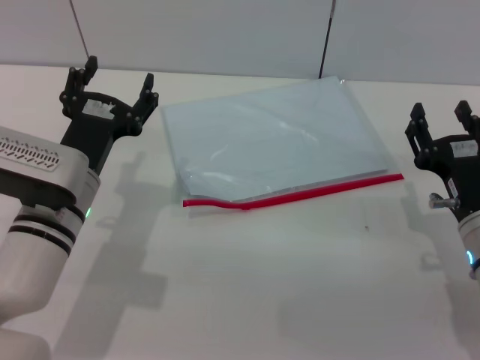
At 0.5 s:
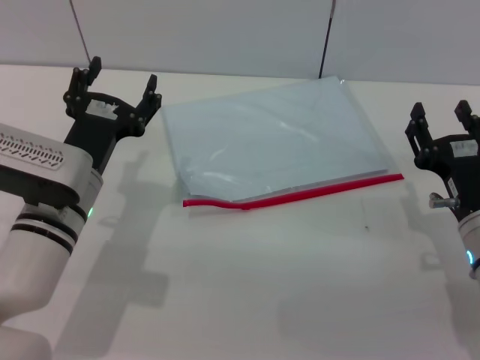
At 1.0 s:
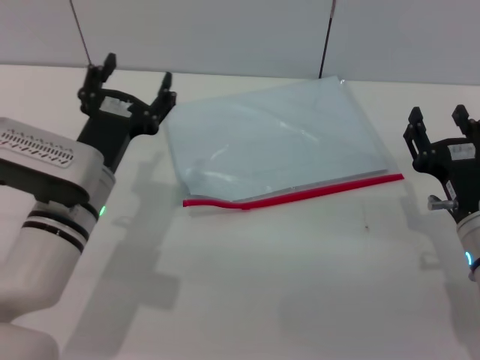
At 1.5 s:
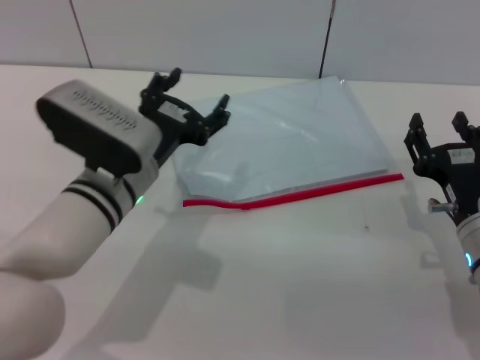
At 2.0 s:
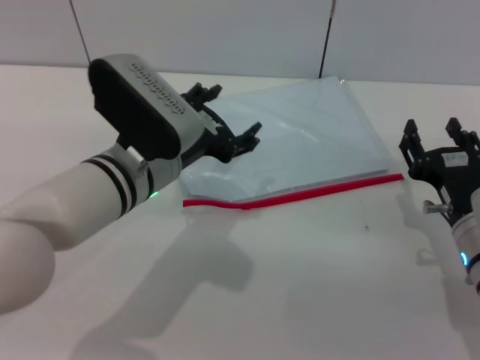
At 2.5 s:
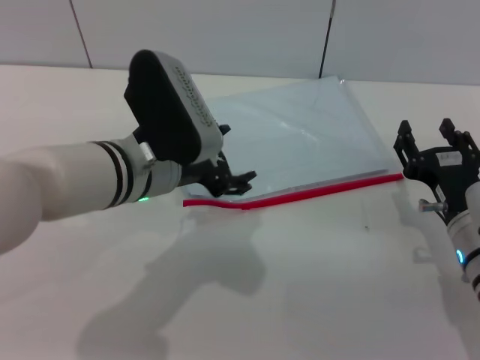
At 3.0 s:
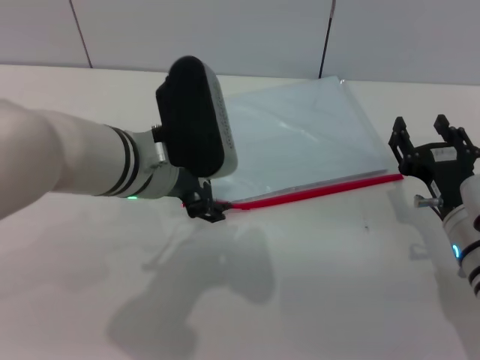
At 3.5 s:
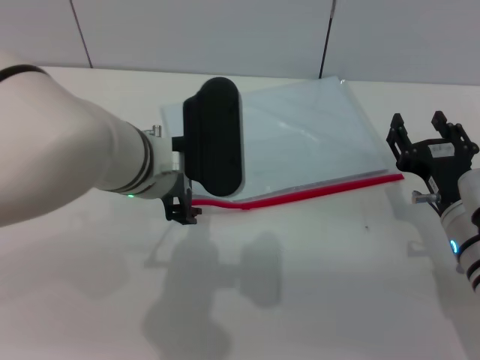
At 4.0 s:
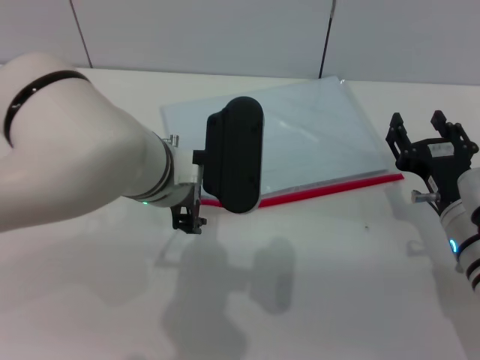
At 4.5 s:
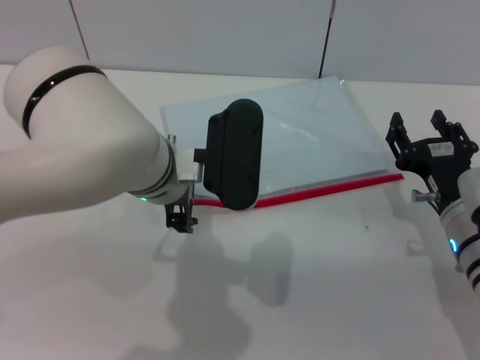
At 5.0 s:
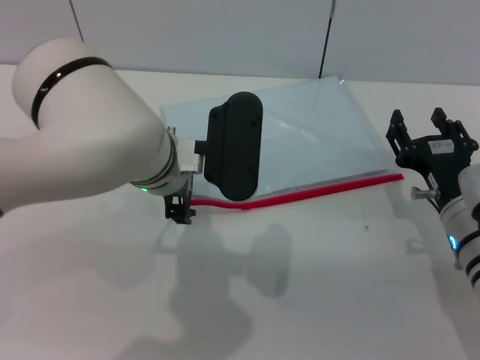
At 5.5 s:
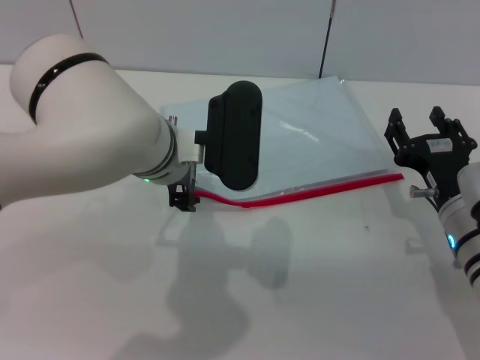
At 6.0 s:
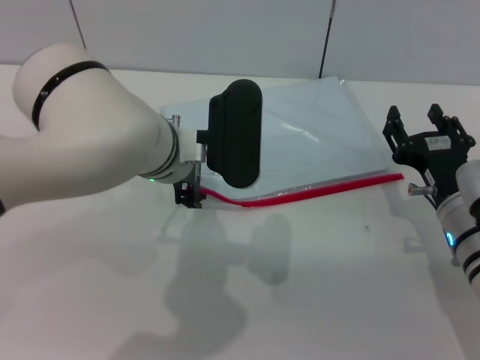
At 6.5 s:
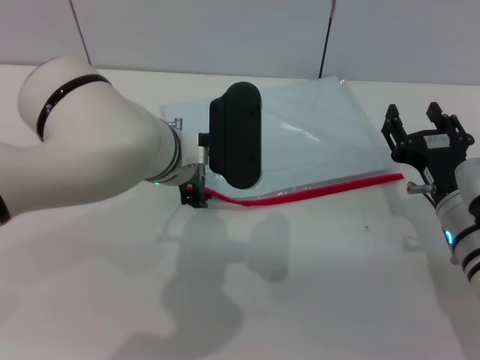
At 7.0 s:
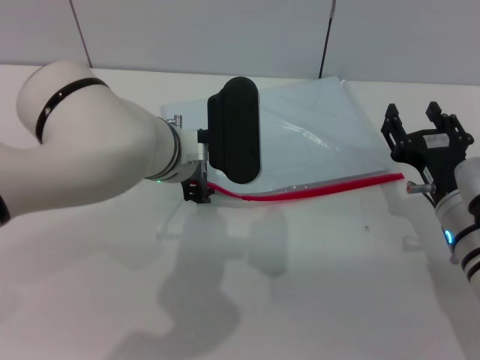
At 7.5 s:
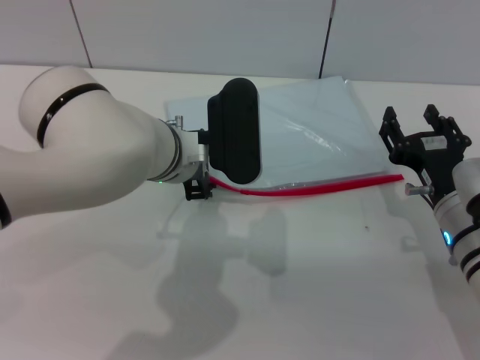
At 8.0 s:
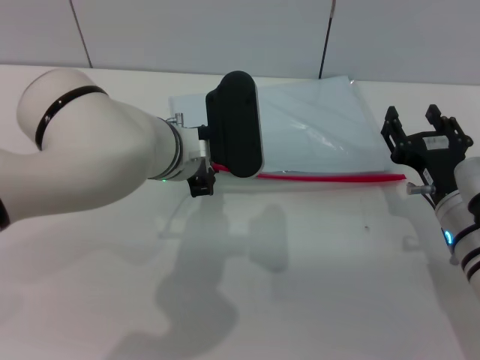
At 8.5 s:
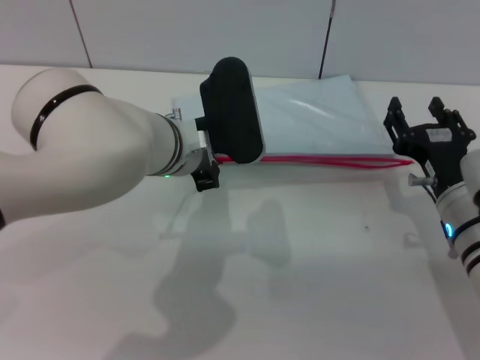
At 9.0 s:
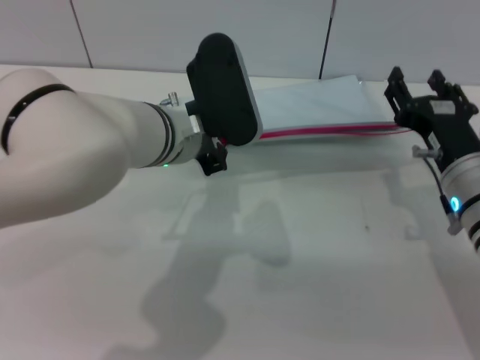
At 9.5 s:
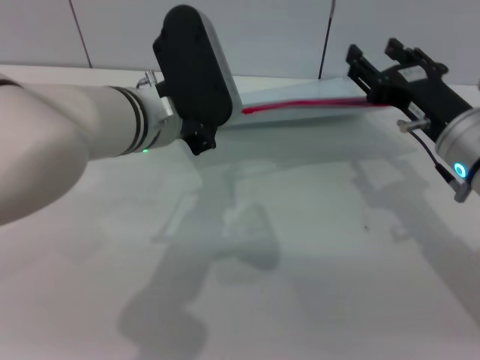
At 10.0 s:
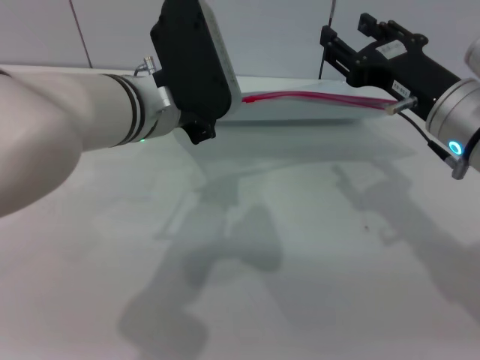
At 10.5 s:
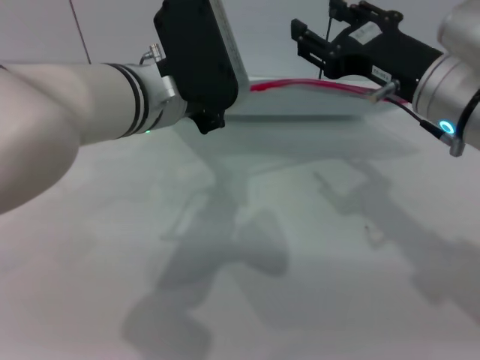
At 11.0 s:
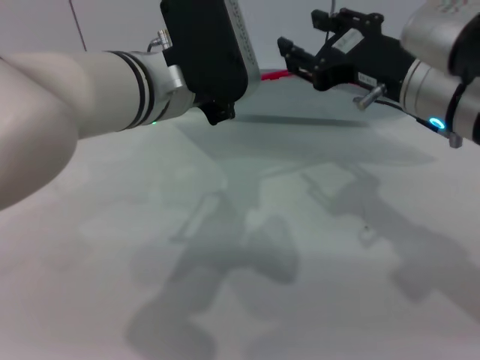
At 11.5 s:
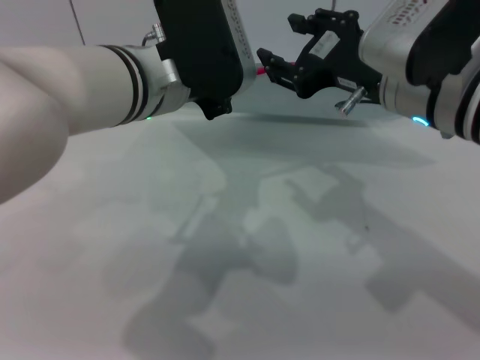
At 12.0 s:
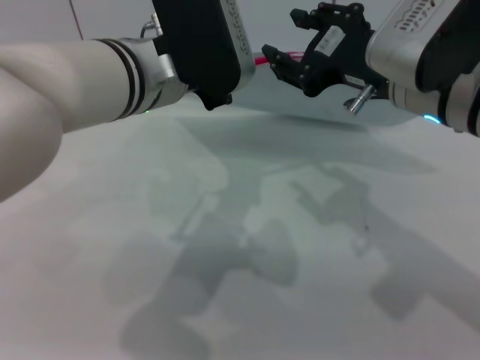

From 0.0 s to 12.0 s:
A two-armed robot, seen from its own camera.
Step, from 0.0 s to 10.0 s: Pick up the transparent plastic bag with the left gripper.
From 0.0 s to 2.0 s: The left gripper shifts about 10 cm to the right and upward.
From 4.0 s to 6.0 s: The grippers stay close to where they were, moving slightly.
From 6.0 s to 8.0 s: The left gripper closes its fingers.
From 8.0 s to 10.0 s: The left gripper is displaced upward by some 5 cm. The right gripper moves upward, about 10 cm.
From 10.0 s to 12.0 s: The right gripper is displaced upward by roughly 5 cm.

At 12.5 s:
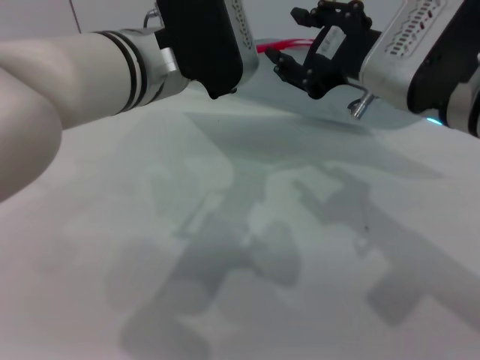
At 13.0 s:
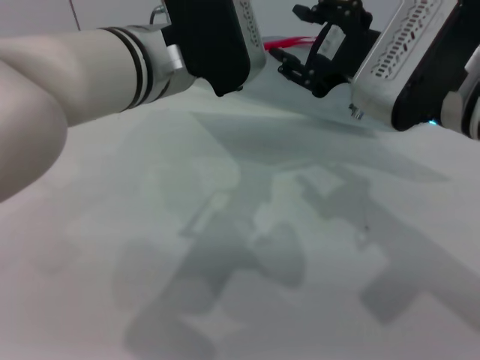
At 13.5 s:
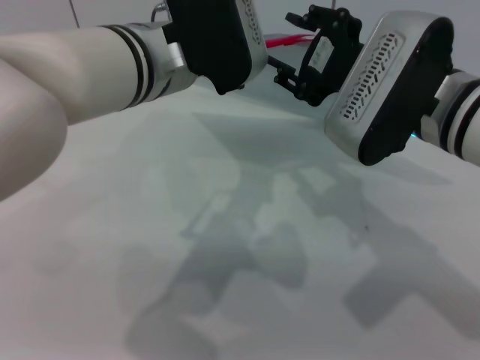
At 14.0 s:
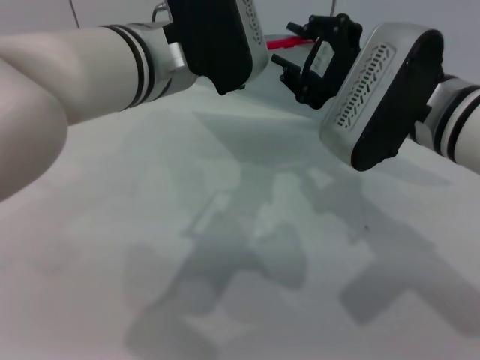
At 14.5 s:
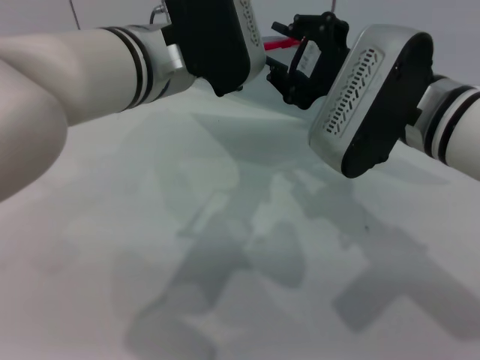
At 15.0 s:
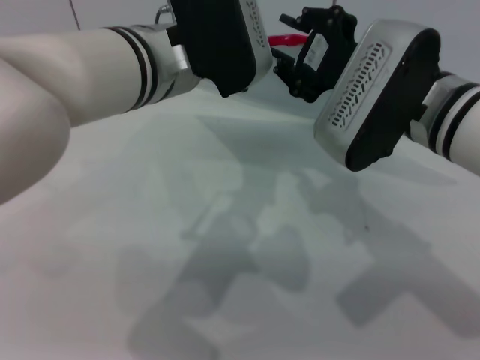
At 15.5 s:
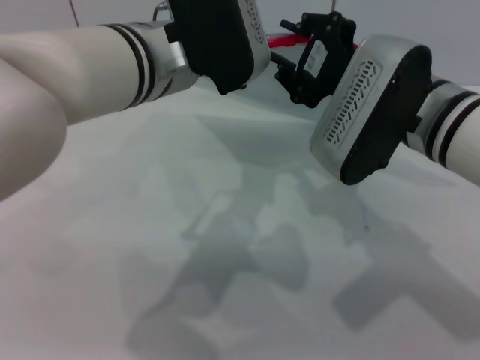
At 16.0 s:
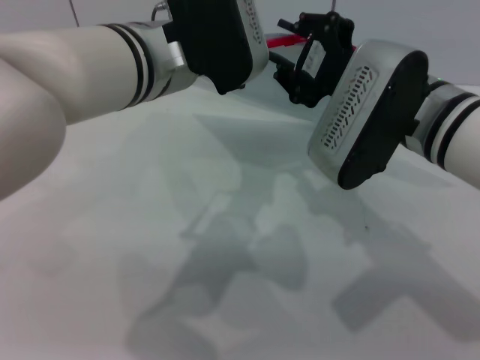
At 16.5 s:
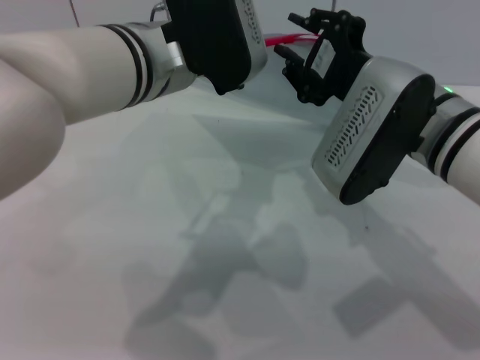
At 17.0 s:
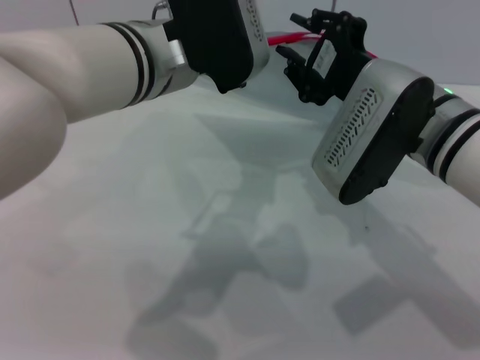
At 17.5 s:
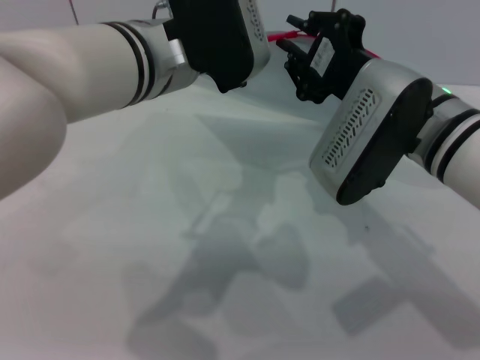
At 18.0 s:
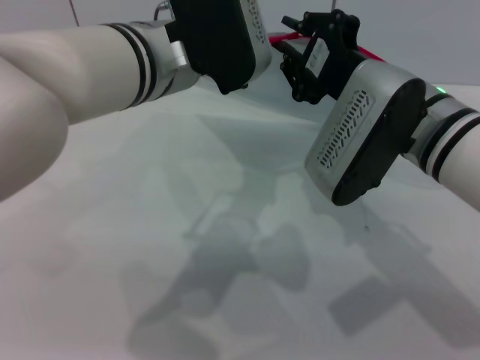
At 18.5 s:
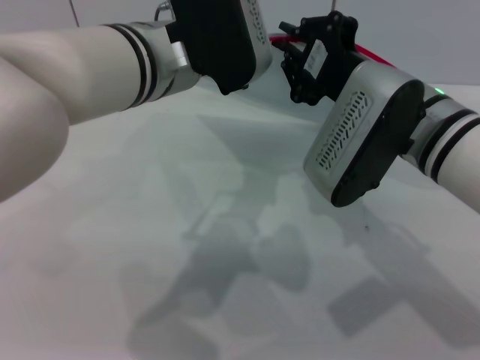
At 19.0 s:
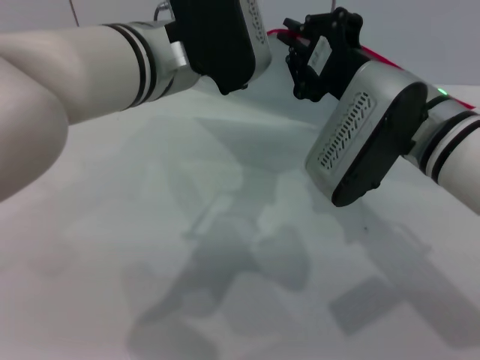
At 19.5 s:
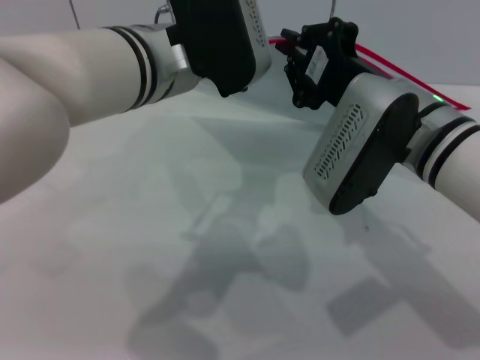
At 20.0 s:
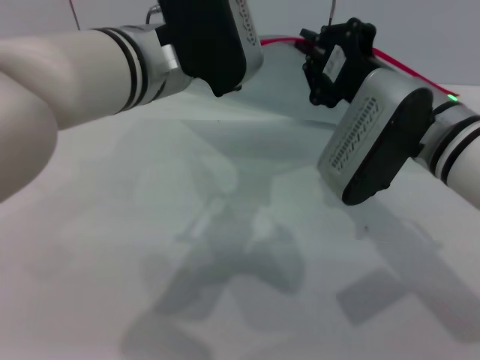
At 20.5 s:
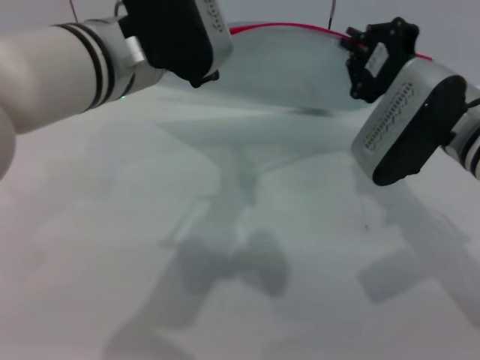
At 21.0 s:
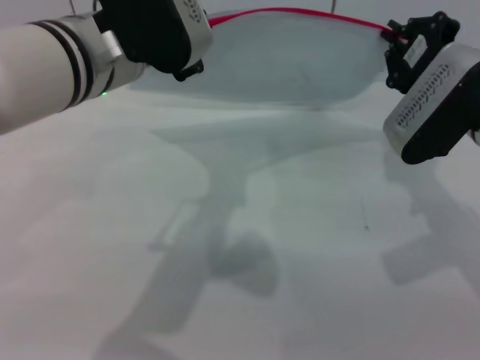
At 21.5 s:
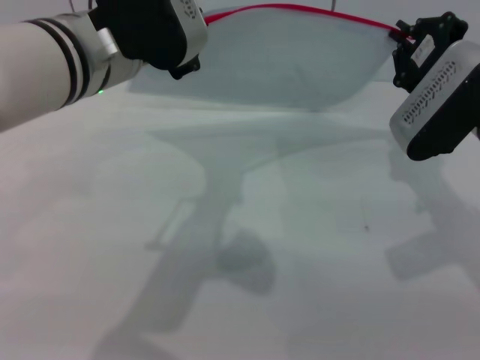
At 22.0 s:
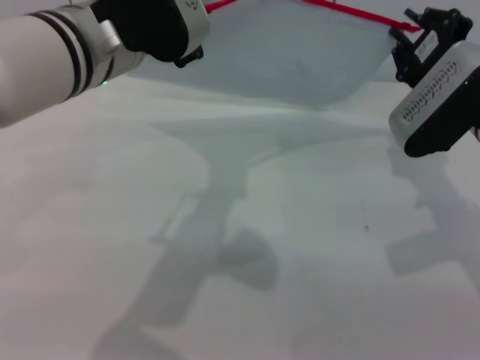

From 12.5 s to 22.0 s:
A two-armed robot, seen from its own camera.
Step, from 12.5 s to 22.0 s: Pulling up the zipper on the transparent plastic bag with the right gripper to close it.
From 12.5 s to 14.5 s: The grippers make only small movements.
From 14.5 s to 16.5 s: The grippers make only small movements.
From 16.5 s to 18.0 s: The two grippers keep their place.
From 18.0 s to 20.0 s: The grippers stay close to where they were, moving slightly.
From 20.0 s to 22.0 s: The right gripper shifts roughly 5 cm to the right.

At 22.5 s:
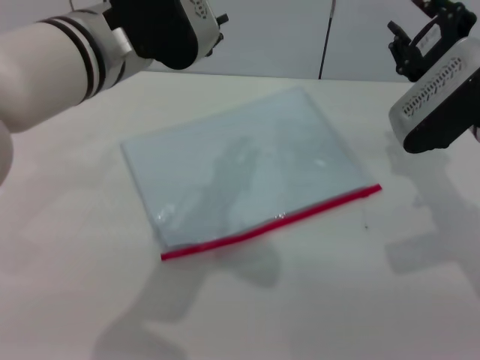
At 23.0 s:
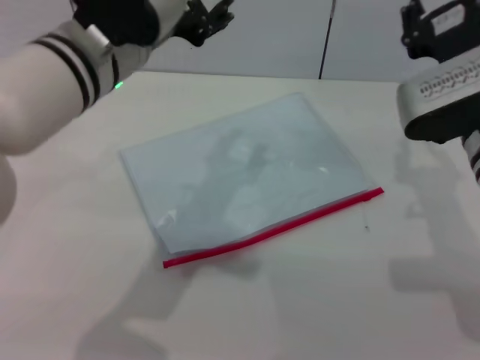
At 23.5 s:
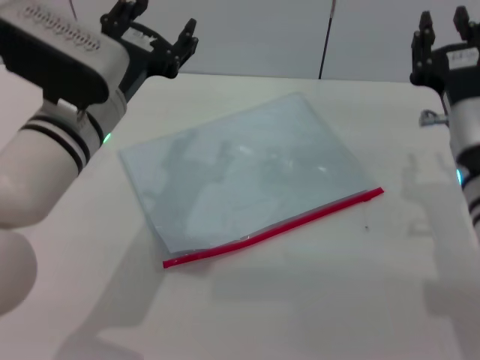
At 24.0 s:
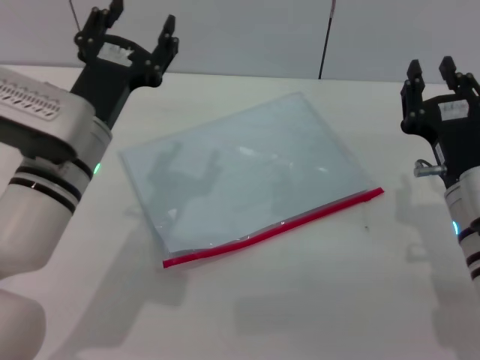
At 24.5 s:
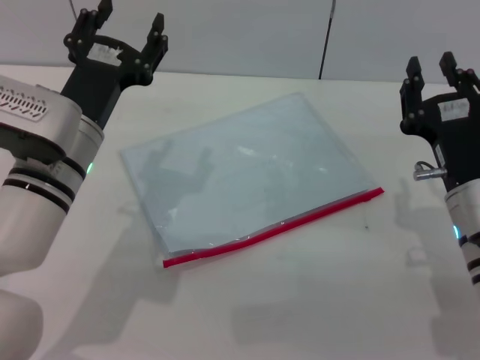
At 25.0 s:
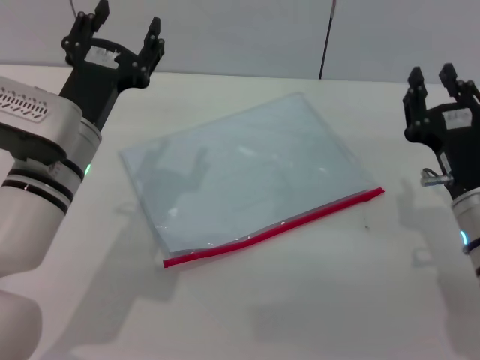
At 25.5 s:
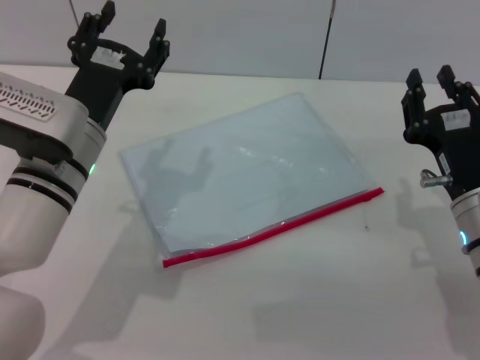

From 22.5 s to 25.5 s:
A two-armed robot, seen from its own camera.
From 22.5 s to 24.0 s: The left gripper heads downward, covering roughly 10 cm, and opens its fingers, while the right gripper is displaced backward and downward by some 10 cm.
From 24.0 s to 25.5 s: The grippers stay close to where they were, moving slightly.
